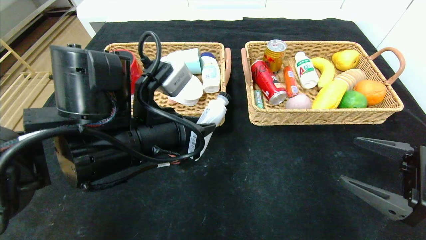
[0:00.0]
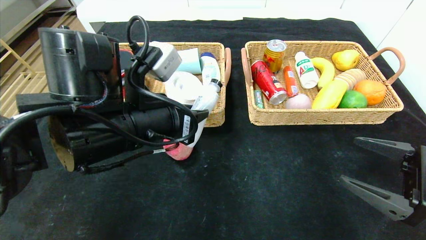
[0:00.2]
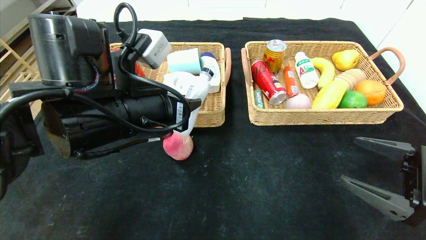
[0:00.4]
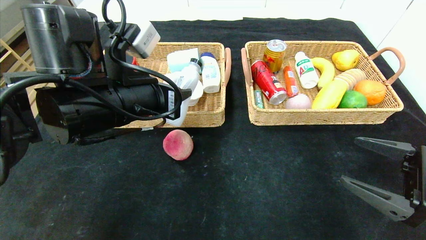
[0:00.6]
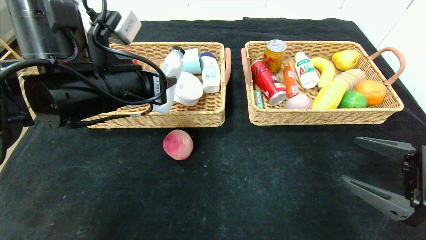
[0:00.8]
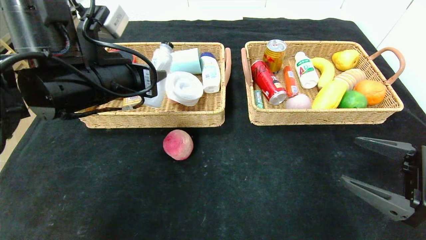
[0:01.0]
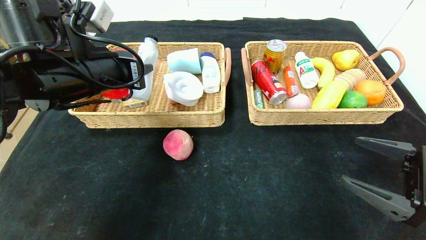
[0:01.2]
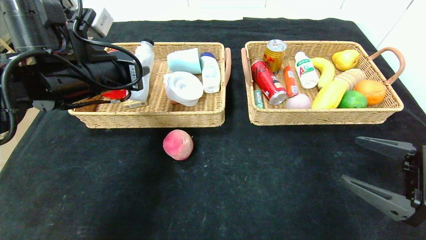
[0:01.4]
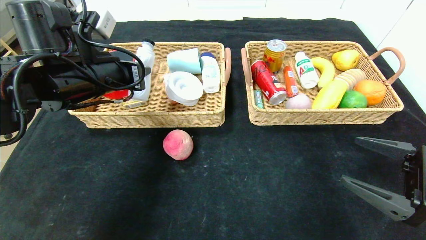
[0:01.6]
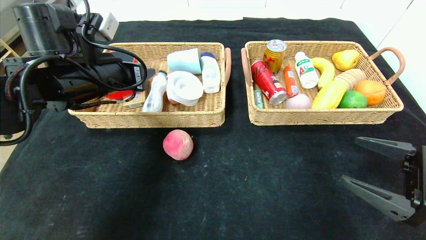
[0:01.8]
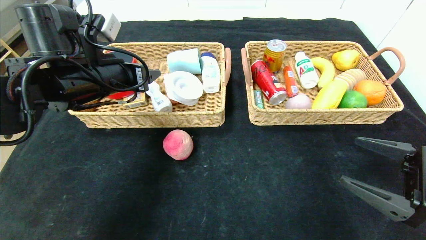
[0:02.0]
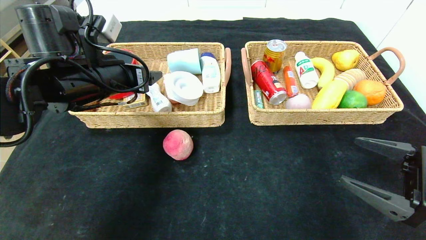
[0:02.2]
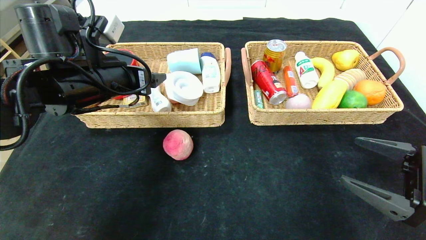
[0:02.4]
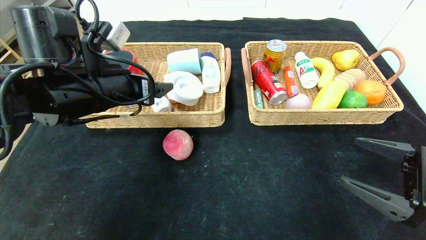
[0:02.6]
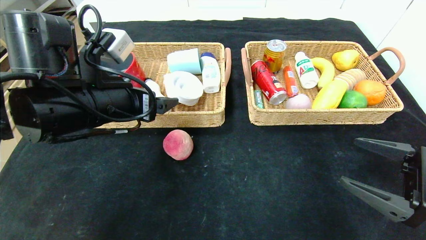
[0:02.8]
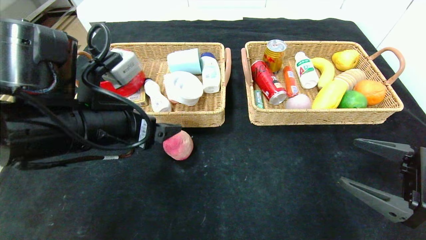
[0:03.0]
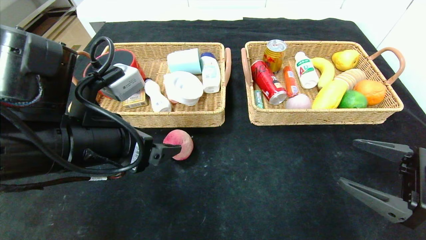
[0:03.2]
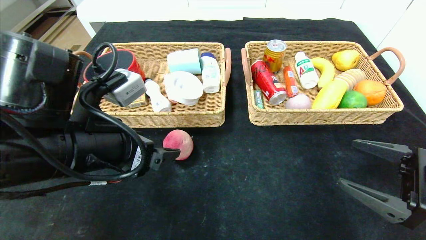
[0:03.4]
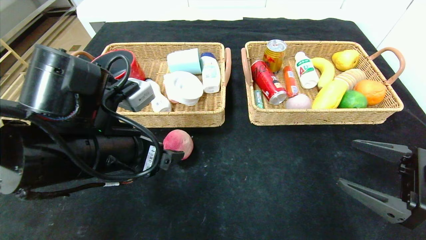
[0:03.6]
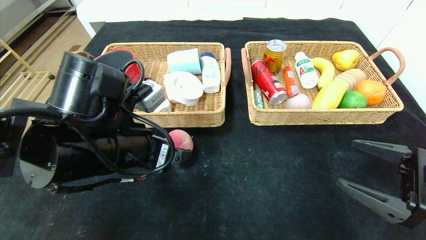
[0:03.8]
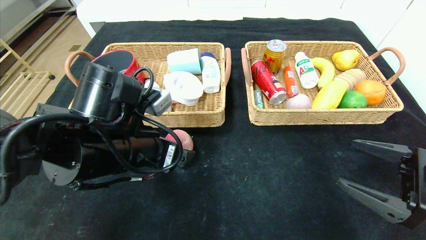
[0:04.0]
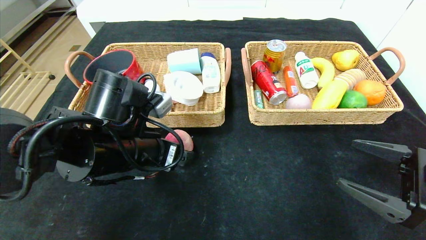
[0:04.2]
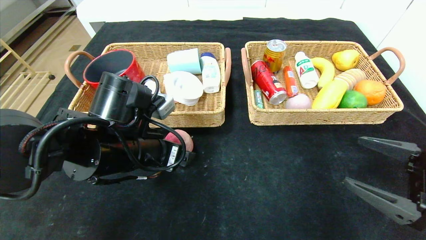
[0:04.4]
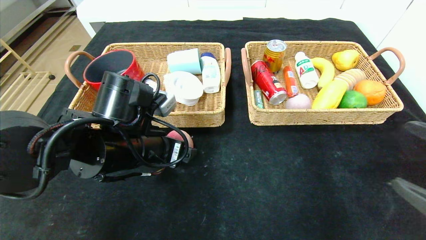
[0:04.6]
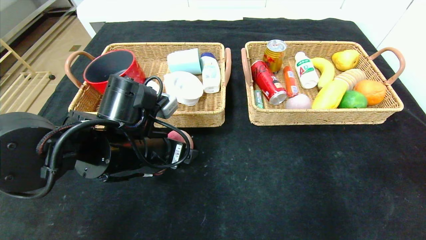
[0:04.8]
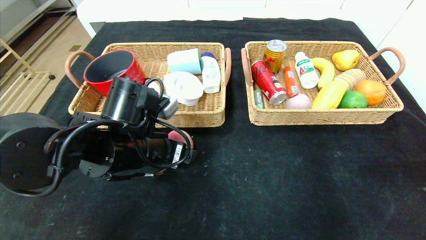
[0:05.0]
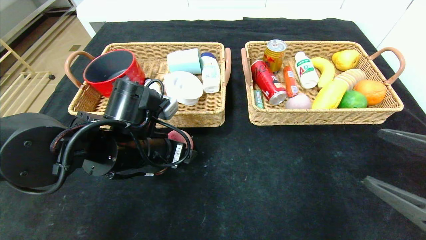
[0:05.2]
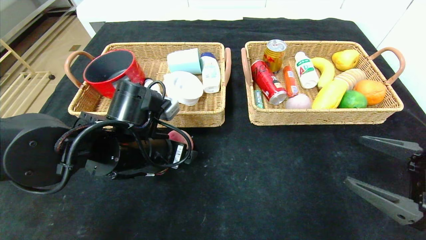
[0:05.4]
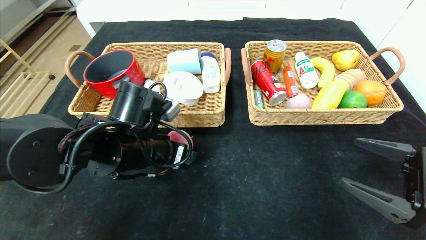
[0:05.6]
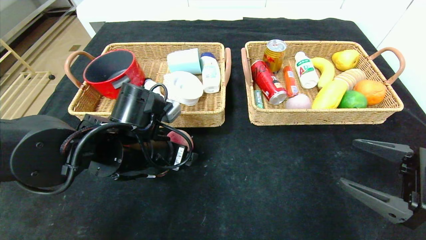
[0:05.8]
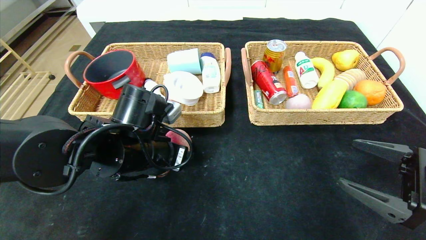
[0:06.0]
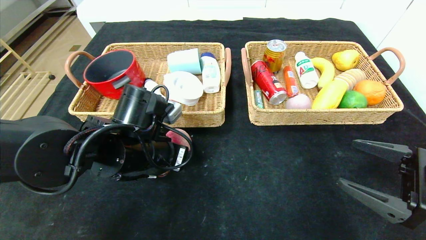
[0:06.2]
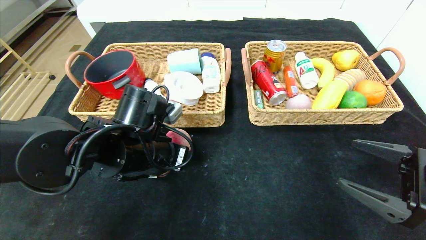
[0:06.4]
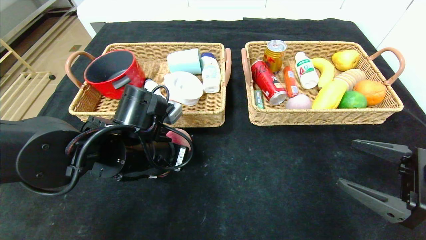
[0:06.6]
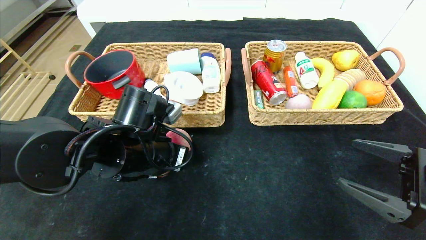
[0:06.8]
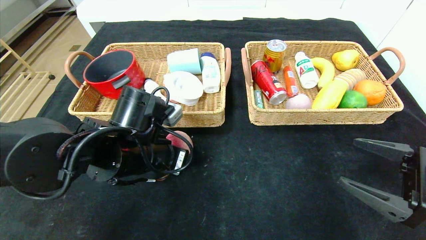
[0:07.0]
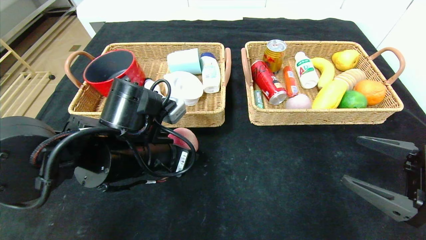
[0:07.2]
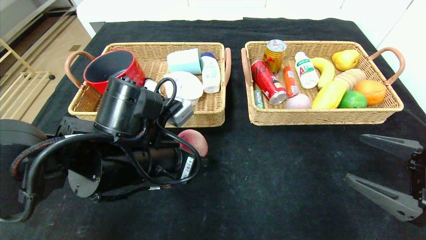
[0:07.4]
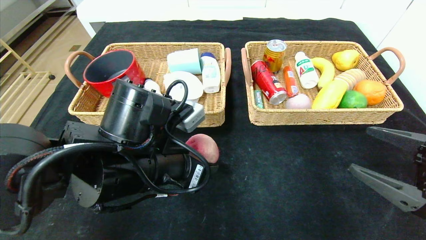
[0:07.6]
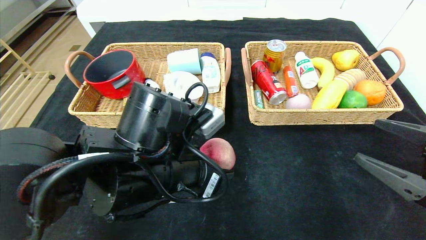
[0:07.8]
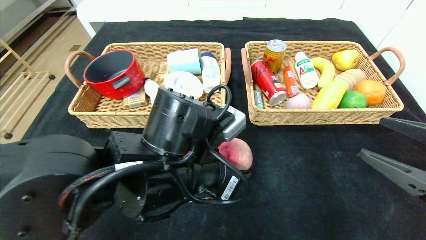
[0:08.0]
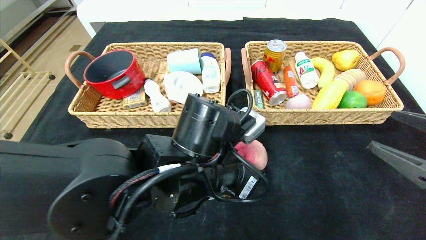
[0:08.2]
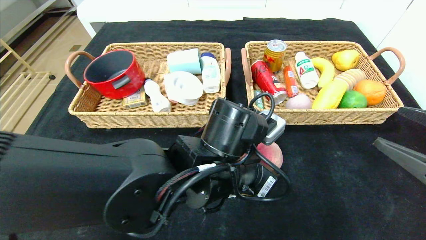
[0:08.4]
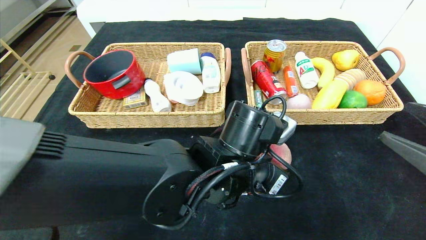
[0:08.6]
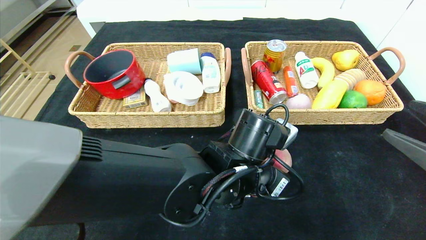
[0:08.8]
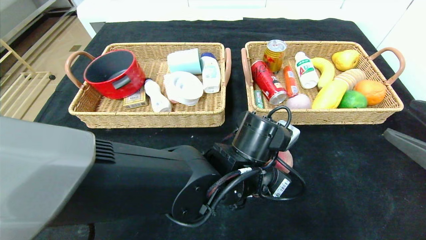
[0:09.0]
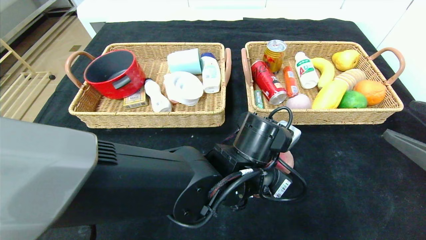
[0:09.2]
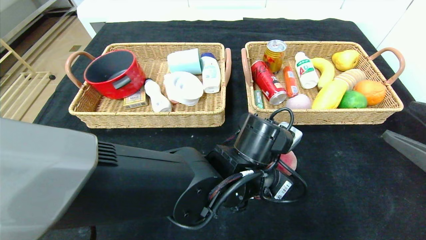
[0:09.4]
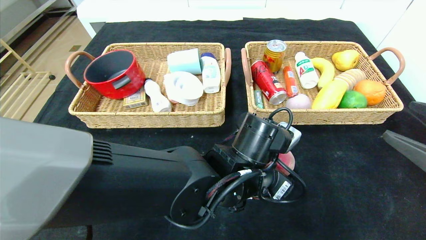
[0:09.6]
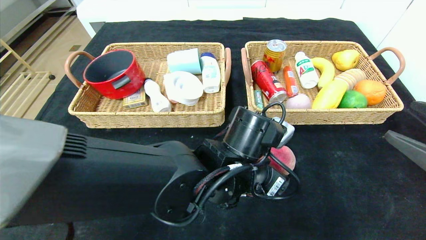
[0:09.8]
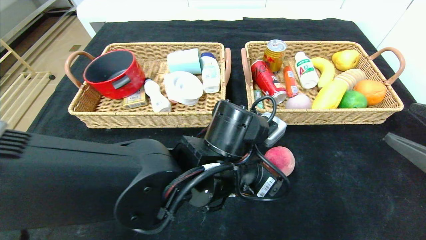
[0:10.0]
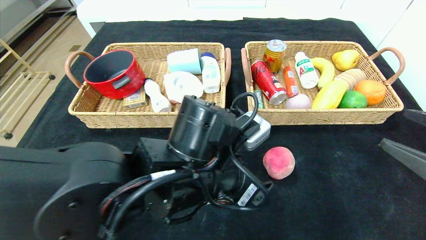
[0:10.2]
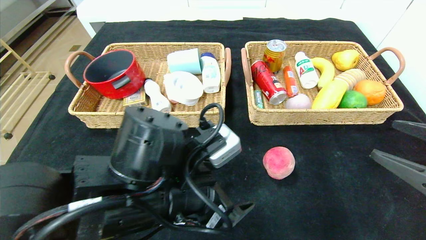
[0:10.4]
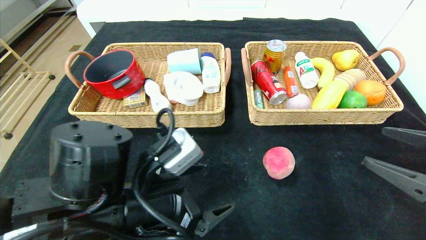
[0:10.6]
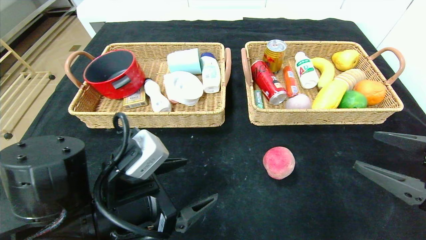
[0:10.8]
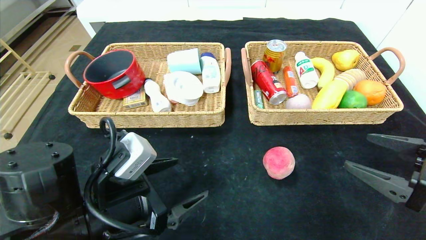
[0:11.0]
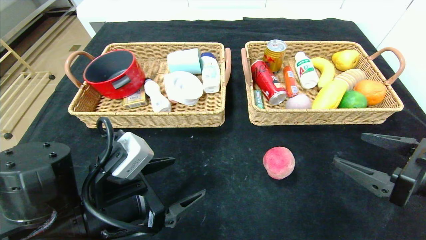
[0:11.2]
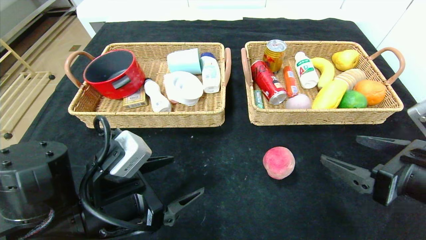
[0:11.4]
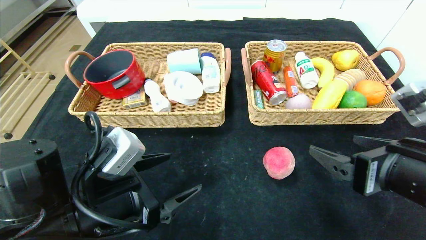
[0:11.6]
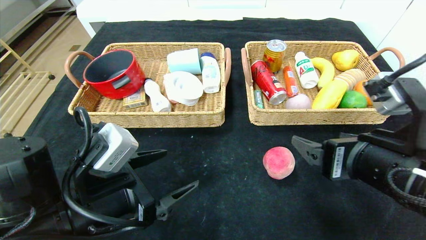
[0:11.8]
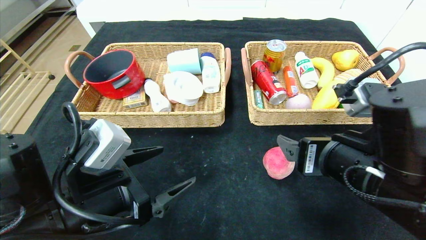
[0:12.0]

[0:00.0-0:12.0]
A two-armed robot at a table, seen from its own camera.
Step, 0:02.0 to 0:10.0: Place the peach in the center of the table.
0:00.0 to 0:01.6: The left gripper heads to the left and forward, covering roughly 15 cm.
0:01.6 to 0:03.0: The left gripper moves backward, approximately 10 cm, and opens its fingers.
0:03.0 to 0:04.4: The left gripper goes about 5 cm downward.
0:04.4 to 0:06.0: The right gripper moves approximately 5 cm backward and comes back. The left gripper closes its fingers.
0:06.0 to 0:07.6: The left gripper goes roughly 5 cm backward.
0:07.6 to 0:09.0: The left gripper moves to the right, approximately 15 cm.
0:09.0 to 0:10.4: The left gripper heads to the left and backward, covering approximately 15 cm, and opens up.
0:10.4 to 0:12.0: The right gripper is displaced to the left by some 20 cm. The left gripper moves to the left, roughly 10 cm.

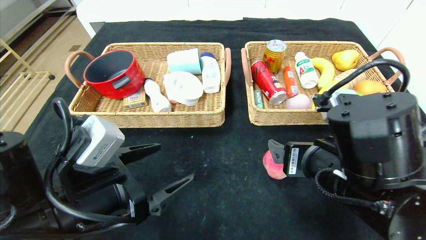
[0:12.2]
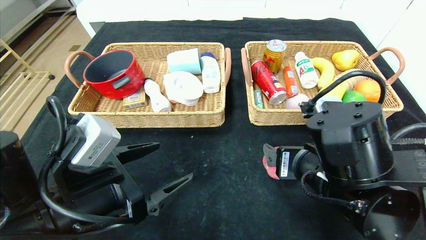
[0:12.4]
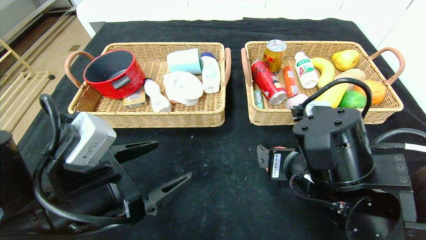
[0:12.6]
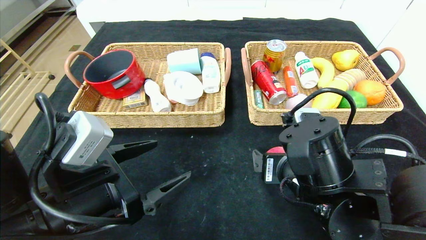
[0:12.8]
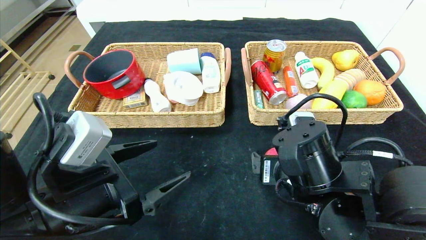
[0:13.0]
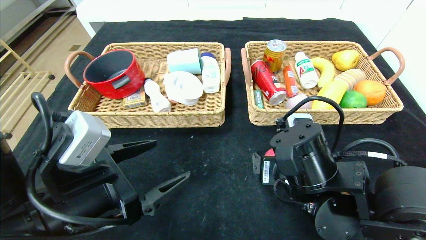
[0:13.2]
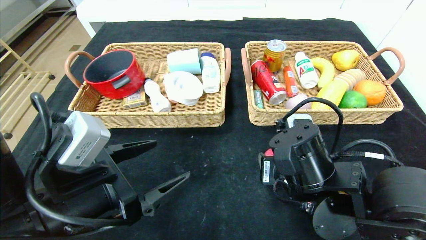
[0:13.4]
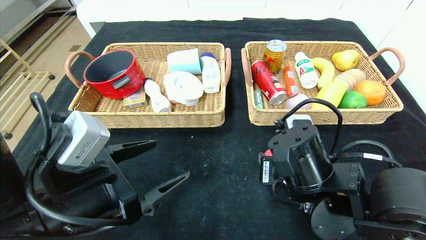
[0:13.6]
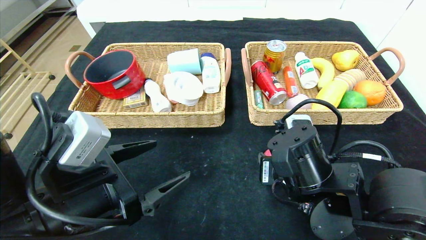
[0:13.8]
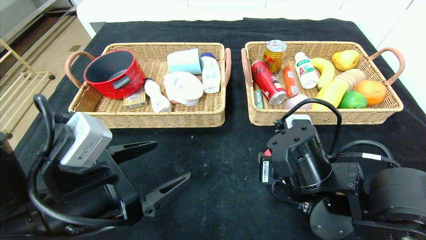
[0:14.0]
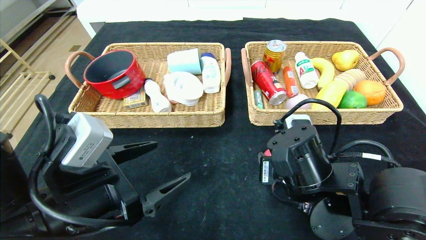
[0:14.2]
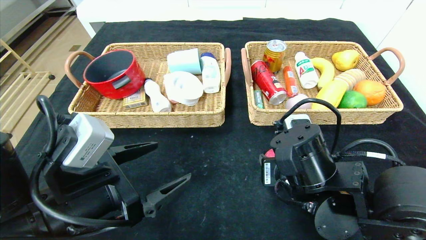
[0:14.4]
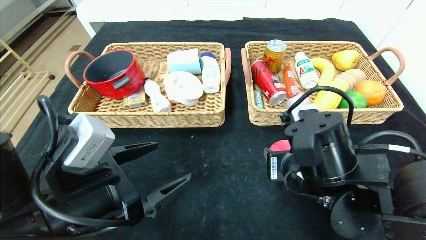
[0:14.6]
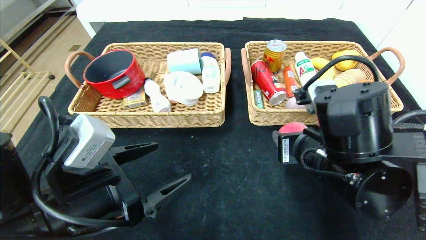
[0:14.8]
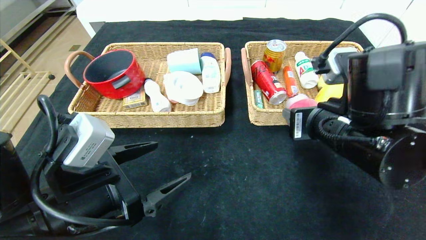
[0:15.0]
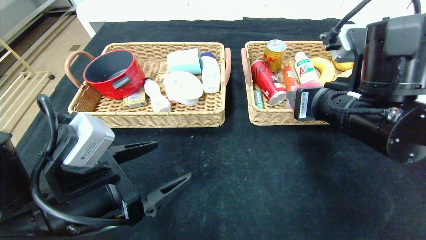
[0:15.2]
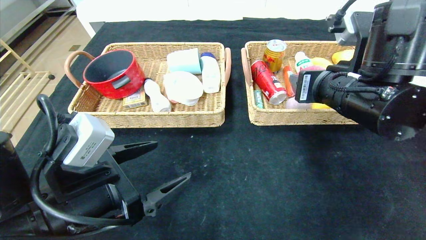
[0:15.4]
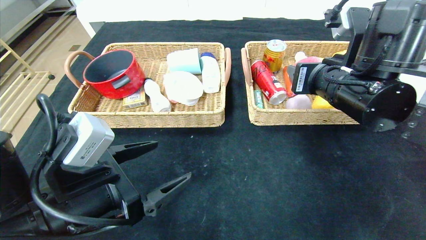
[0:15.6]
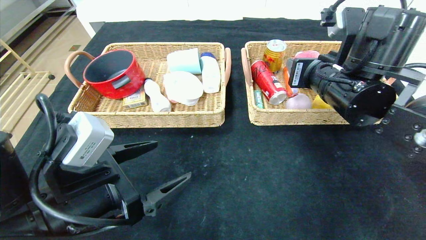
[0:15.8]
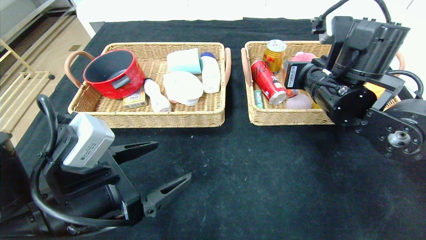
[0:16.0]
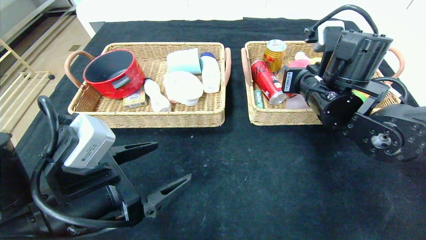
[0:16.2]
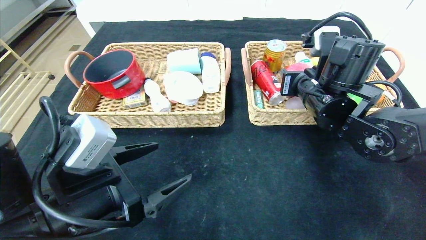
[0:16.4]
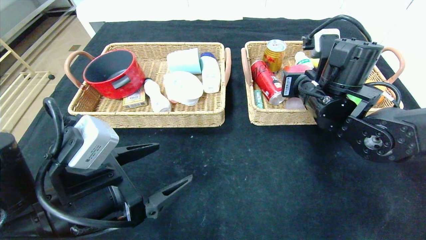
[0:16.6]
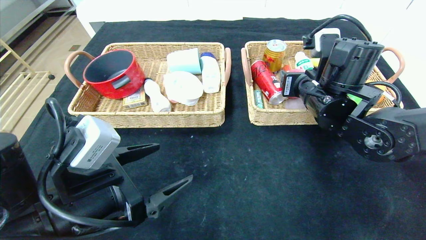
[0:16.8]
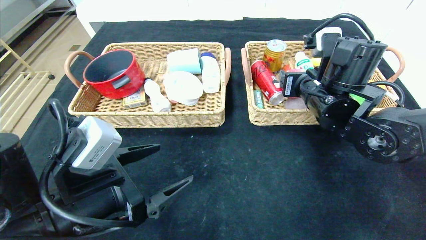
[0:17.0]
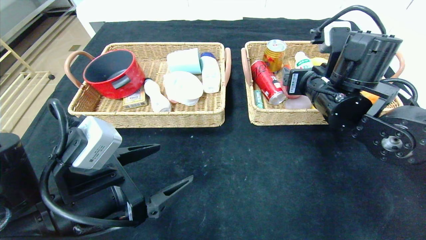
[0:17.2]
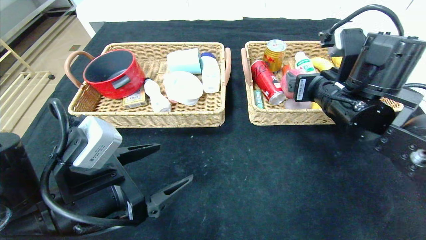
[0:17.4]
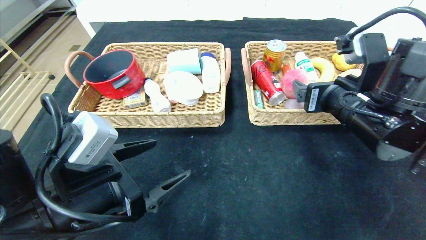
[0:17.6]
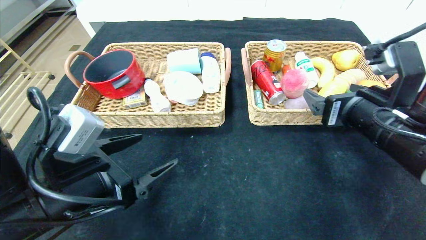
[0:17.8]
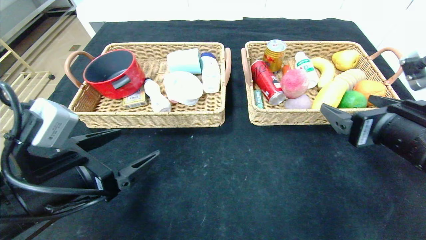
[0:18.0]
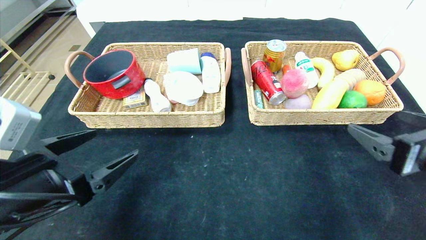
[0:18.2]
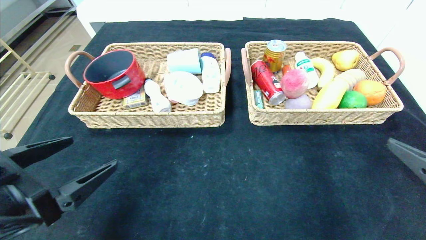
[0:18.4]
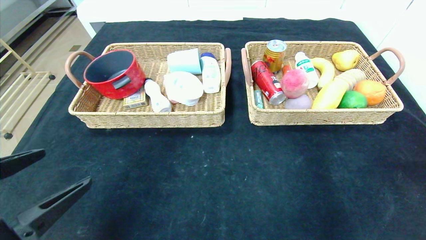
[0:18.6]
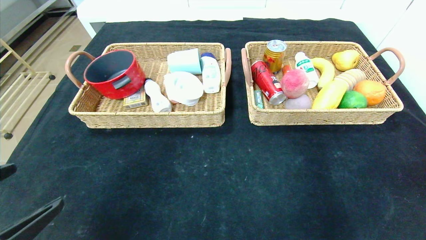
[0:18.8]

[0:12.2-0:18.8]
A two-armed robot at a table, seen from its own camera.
Step, 0:12.2 to 0:17.2: Grasp the peach and put it in the right basket.
0:12.2 to 0:13.8: The right gripper is displaced downward by about 5 cm, and closes.
0:13.8 to 0:15.4: The right gripper goes roughly 15 cm upward and to the right.
0:15.4 to 0:17.2: The right gripper moves forward, roughly 5 cm.
0:17.2 to 0:18.8: The left gripper is displaced backward and to the left by some 15 cm. The right gripper travels backward and to the right by some 35 cm.
